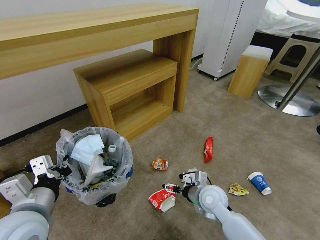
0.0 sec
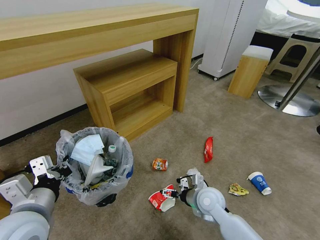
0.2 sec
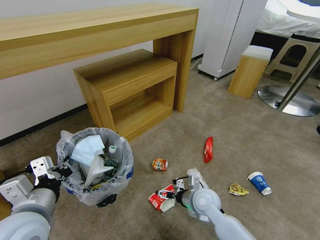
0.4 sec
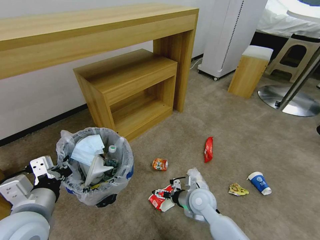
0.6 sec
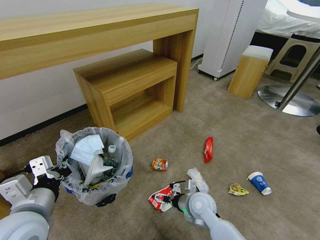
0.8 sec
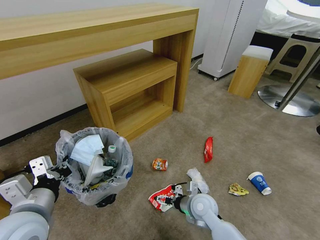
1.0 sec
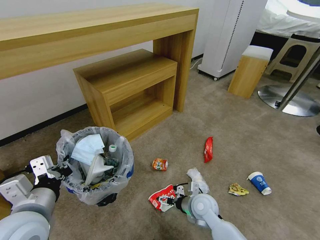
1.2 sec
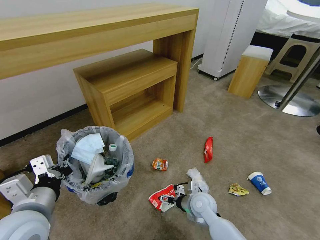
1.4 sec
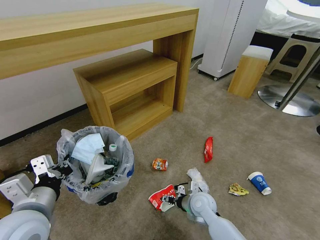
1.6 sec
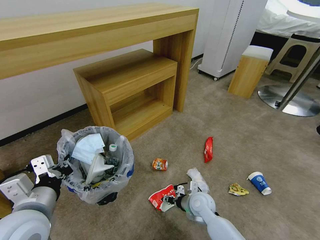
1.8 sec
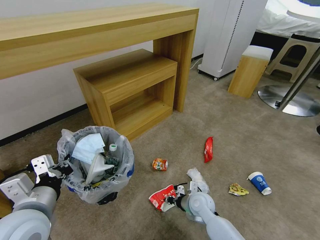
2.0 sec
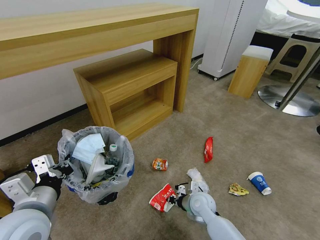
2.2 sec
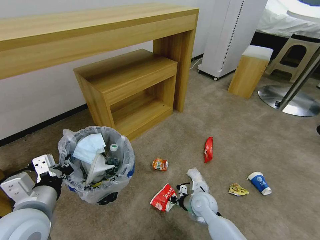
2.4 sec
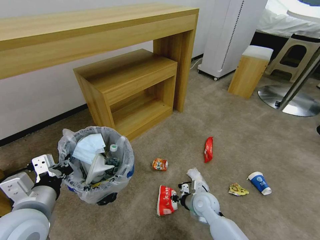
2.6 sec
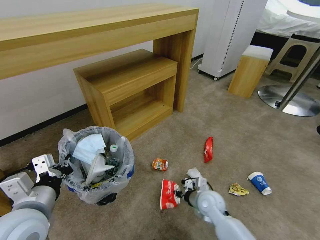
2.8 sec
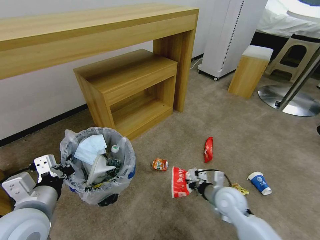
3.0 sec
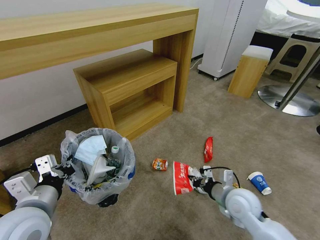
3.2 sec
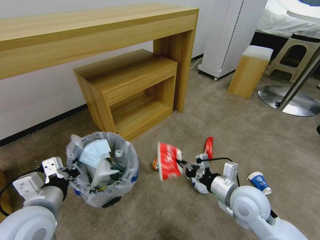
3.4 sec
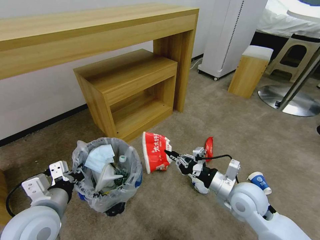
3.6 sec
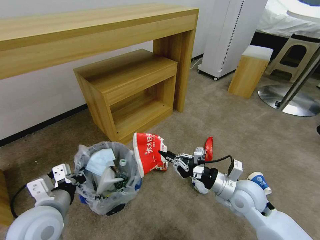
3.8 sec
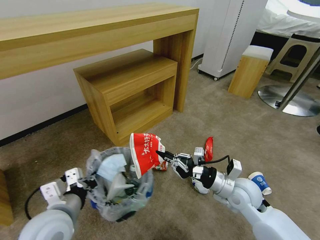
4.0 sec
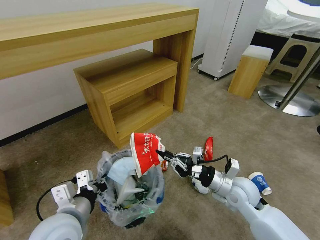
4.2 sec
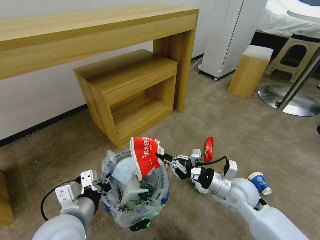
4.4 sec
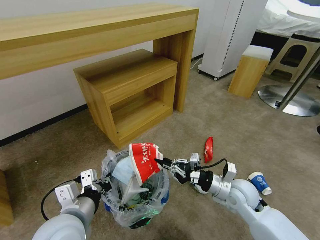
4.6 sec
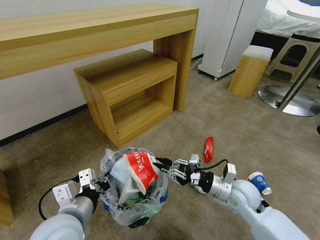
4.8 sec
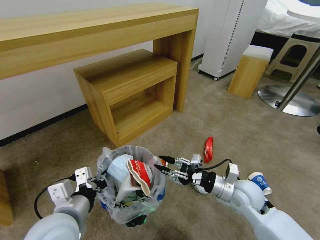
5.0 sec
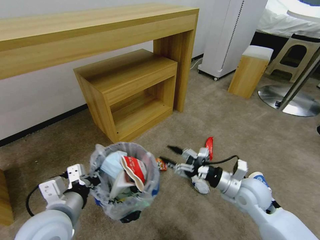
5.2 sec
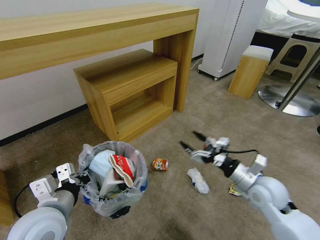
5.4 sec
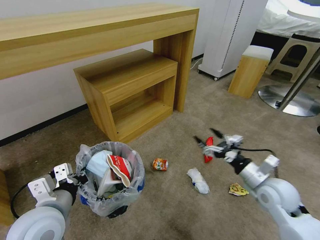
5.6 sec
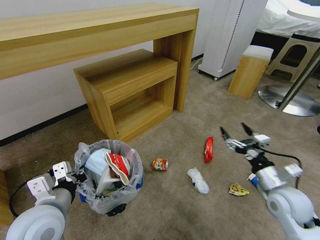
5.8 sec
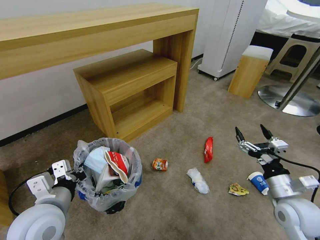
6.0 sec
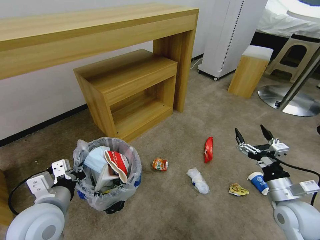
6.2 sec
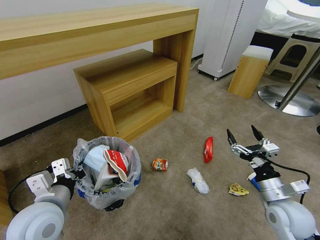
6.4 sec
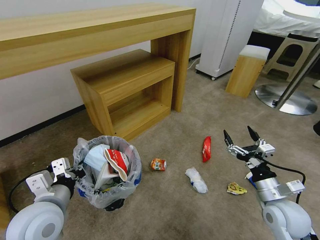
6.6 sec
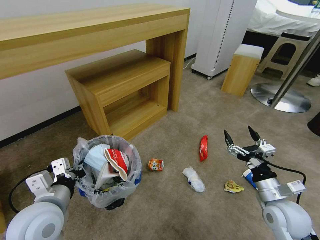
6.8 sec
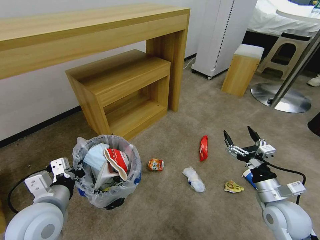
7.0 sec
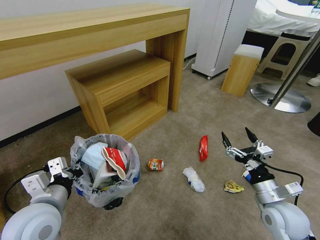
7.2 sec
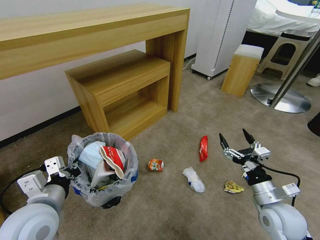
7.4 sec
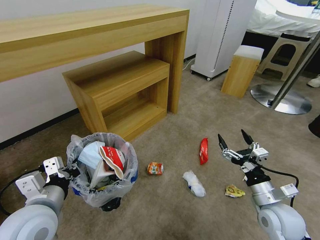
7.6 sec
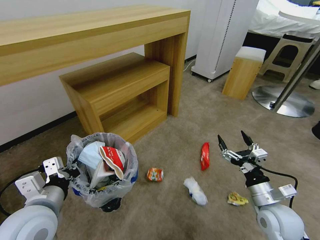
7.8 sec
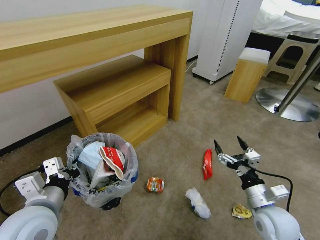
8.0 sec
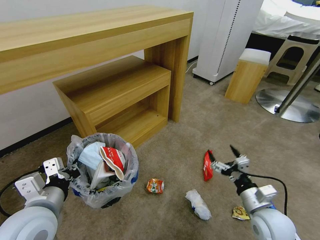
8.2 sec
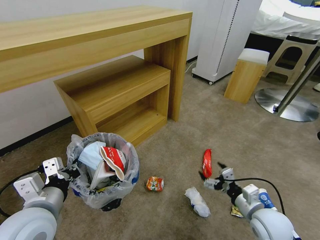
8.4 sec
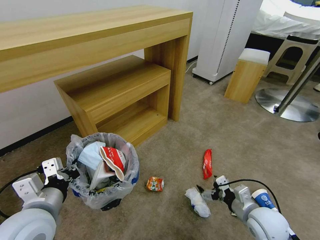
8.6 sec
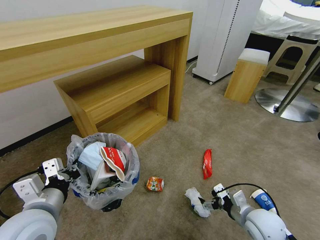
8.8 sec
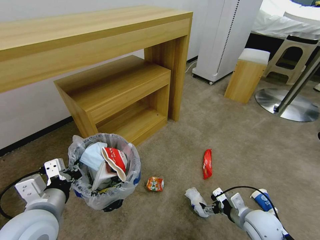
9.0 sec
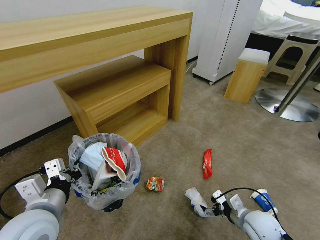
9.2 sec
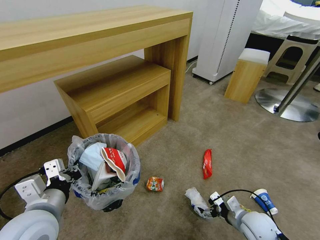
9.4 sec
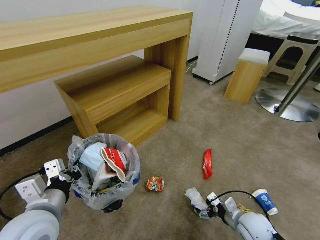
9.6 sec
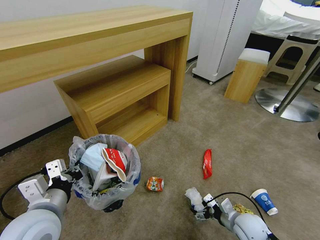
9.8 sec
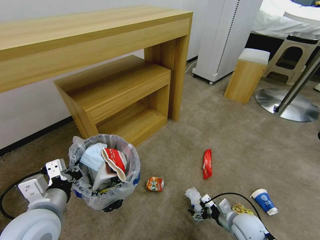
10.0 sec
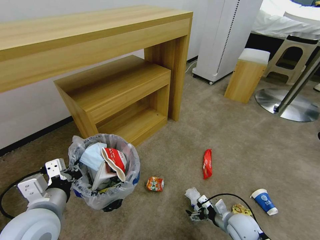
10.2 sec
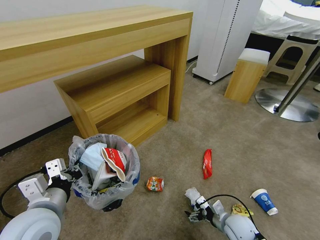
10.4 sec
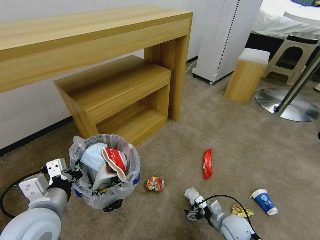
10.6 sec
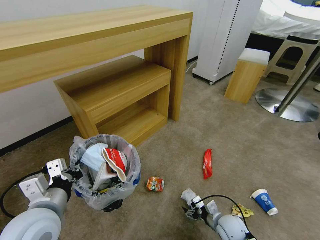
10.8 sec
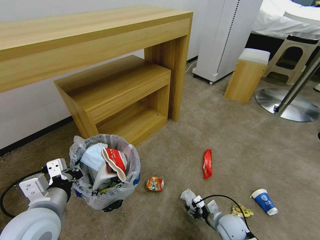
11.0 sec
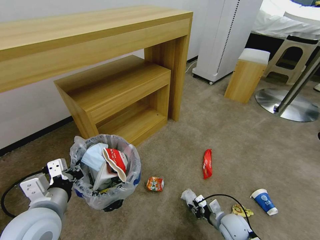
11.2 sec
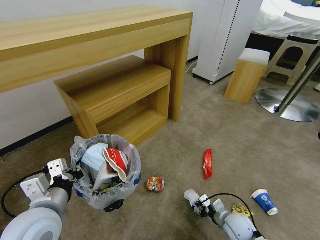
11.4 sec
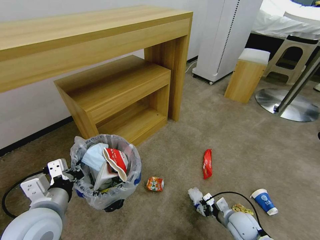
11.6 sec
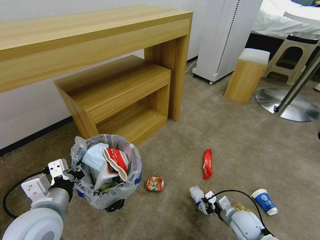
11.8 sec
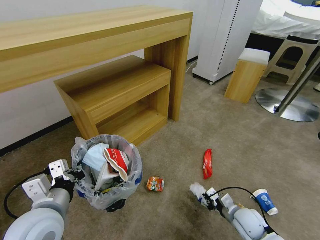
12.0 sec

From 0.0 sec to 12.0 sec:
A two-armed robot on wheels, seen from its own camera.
Task of the whole recording: Pick up the trash bin and place the garbage on the floor into it.
From 0.0 sec to 1.6 sec: The right gripper is displaced downward by roughly 5 cm.
From 1.6 sec to 3.0 sec: The right gripper shifts about 10 cm to the right and upward, and closes up.
From 3.0 sec to 4.4 sec: The right gripper travels upward by approximately 5 cm, while the left gripper travels to the right by approximately 5 cm.
From 4.4 sec to 6.0 sec: The right gripper moves to the right and backward, some 15 cm, and opens up, while the left gripper shifts some 5 cm to the left.
From 7.6 sec to 9.0 sec: The right gripper is displaced downward by some 5 cm.
From 9.0 sec to 10.4 sec: The right gripper is displaced downward by about 10 cm.
From 10.4 sec to 12.0 sec: The right gripper closes up.

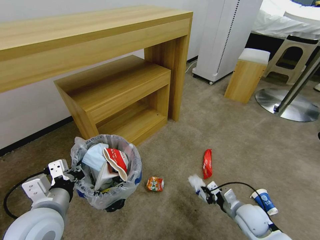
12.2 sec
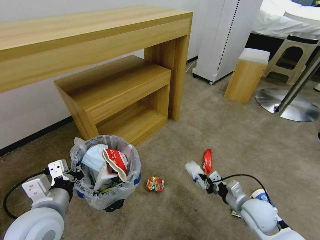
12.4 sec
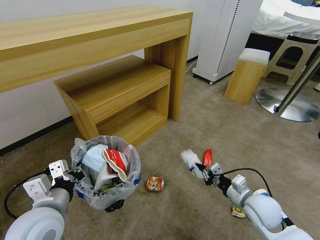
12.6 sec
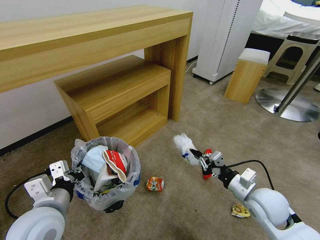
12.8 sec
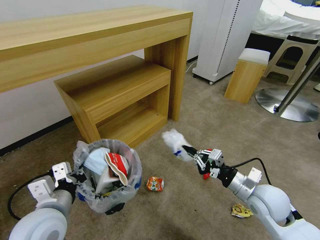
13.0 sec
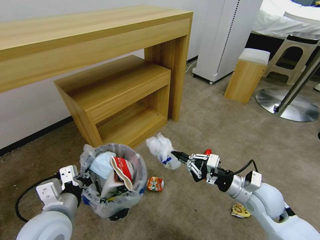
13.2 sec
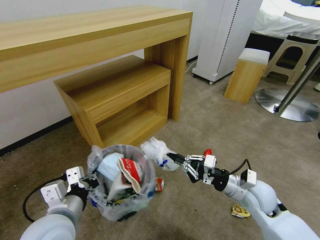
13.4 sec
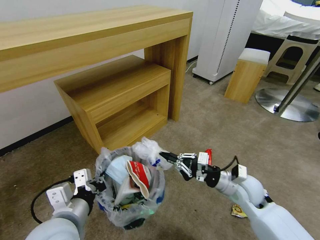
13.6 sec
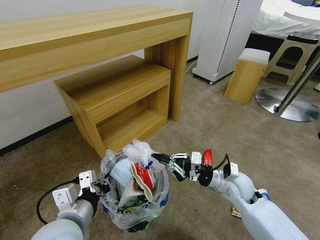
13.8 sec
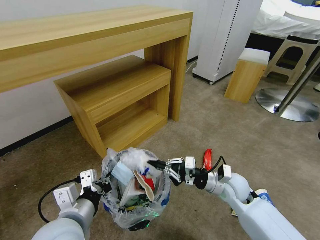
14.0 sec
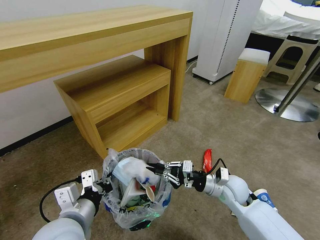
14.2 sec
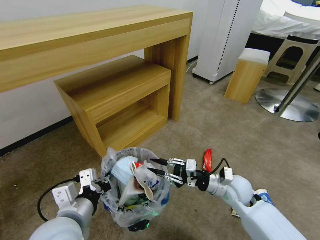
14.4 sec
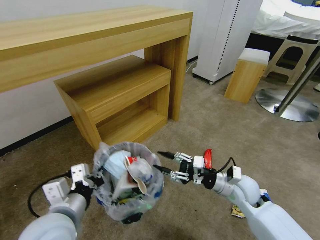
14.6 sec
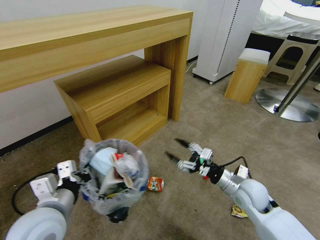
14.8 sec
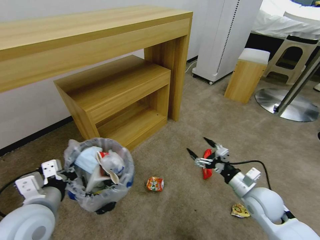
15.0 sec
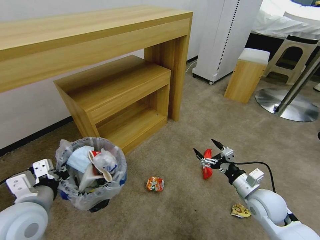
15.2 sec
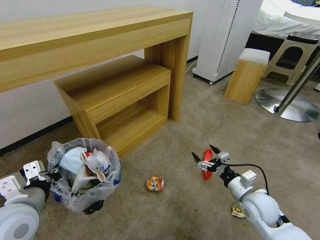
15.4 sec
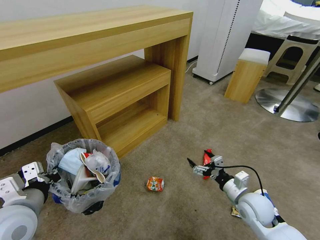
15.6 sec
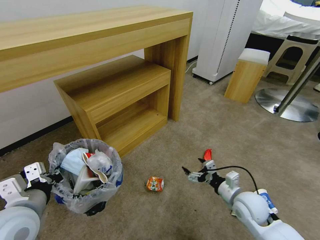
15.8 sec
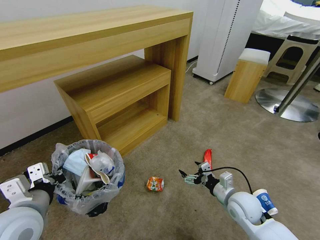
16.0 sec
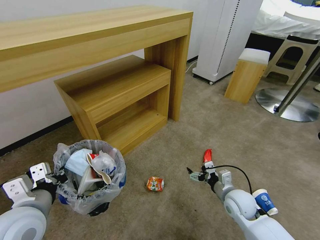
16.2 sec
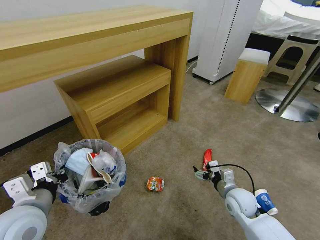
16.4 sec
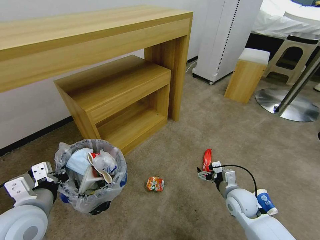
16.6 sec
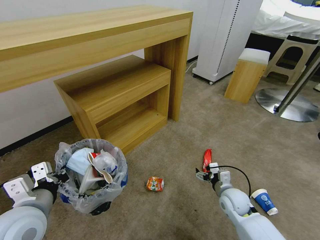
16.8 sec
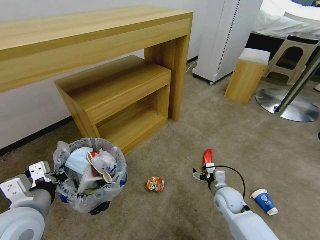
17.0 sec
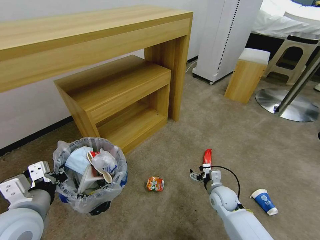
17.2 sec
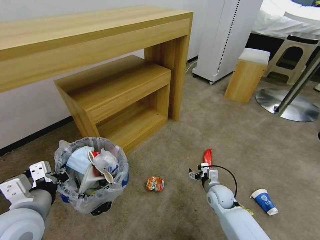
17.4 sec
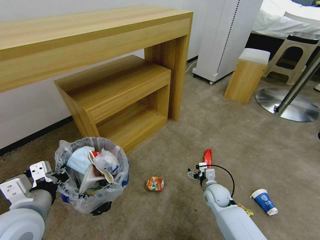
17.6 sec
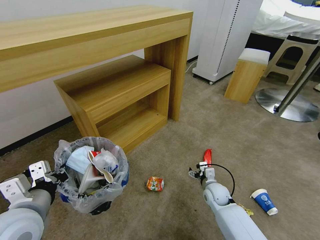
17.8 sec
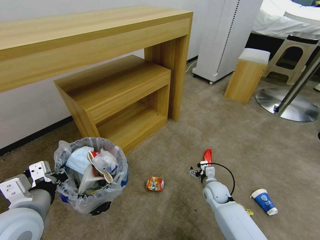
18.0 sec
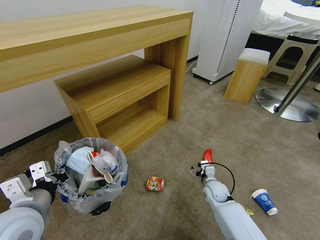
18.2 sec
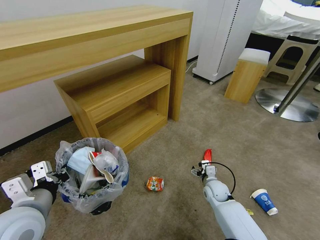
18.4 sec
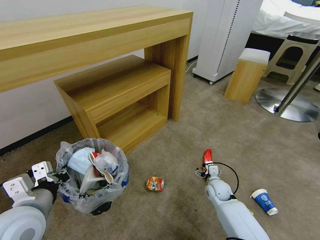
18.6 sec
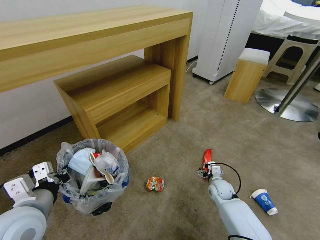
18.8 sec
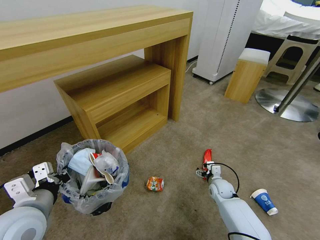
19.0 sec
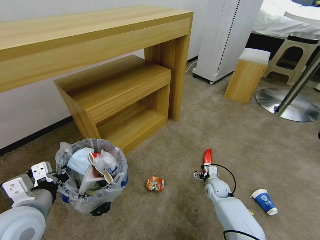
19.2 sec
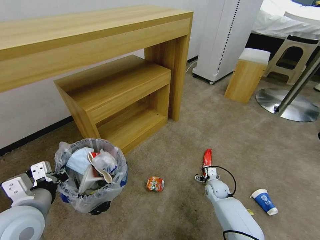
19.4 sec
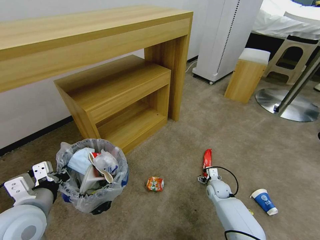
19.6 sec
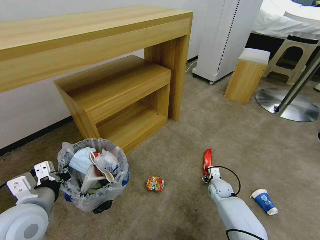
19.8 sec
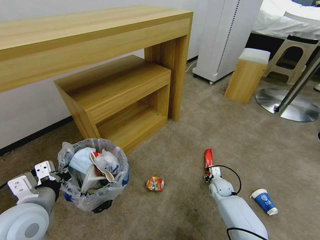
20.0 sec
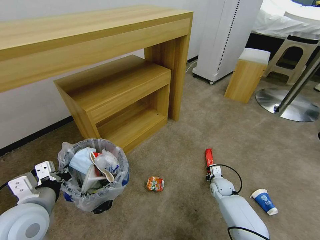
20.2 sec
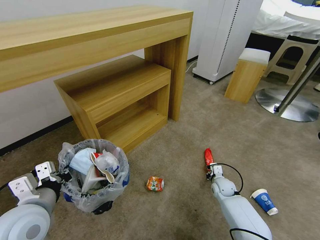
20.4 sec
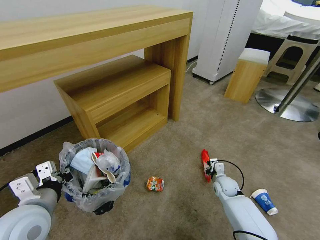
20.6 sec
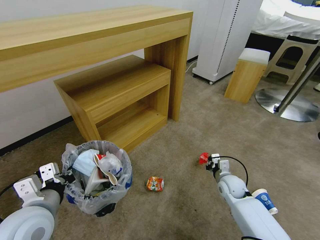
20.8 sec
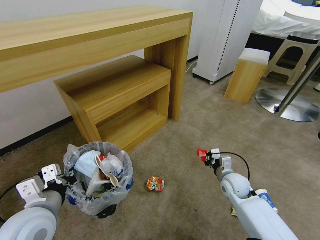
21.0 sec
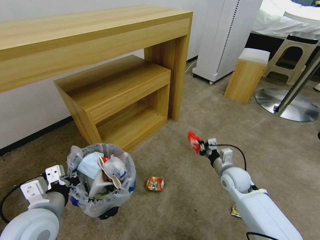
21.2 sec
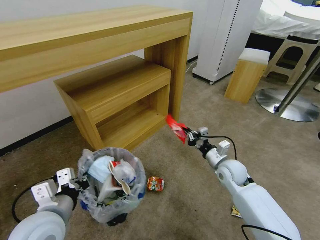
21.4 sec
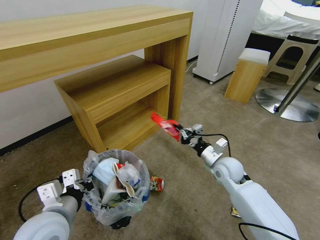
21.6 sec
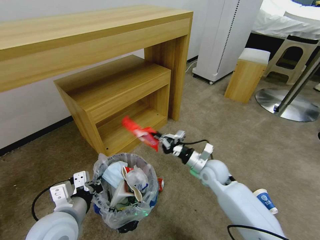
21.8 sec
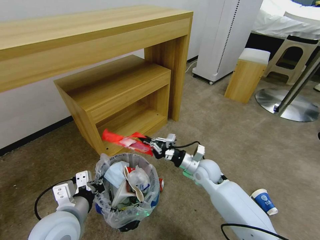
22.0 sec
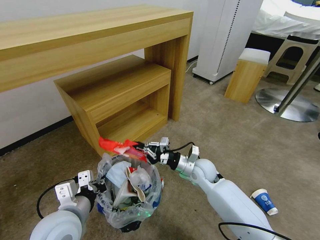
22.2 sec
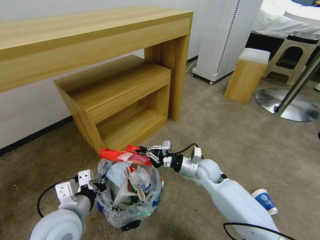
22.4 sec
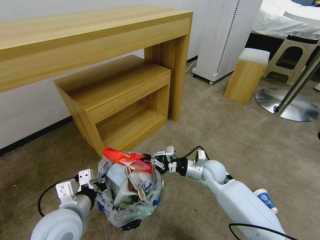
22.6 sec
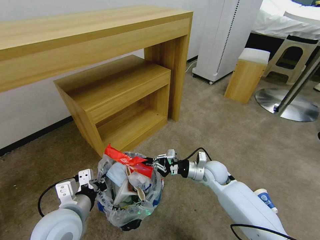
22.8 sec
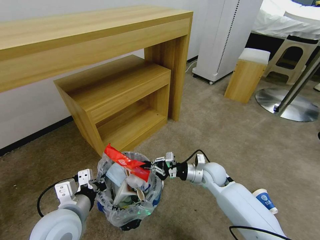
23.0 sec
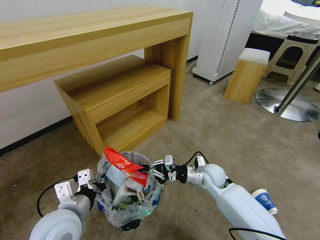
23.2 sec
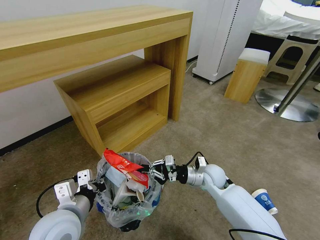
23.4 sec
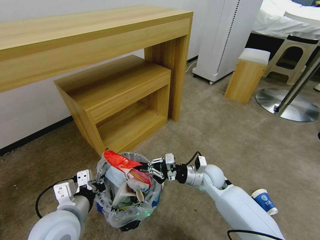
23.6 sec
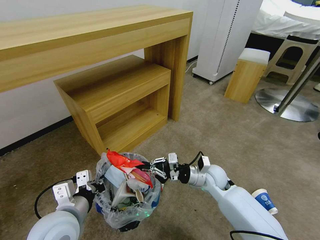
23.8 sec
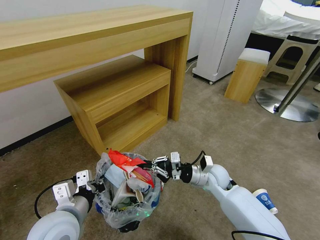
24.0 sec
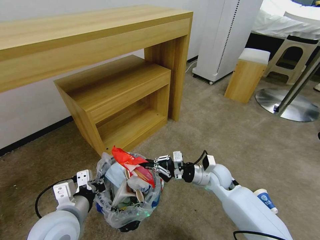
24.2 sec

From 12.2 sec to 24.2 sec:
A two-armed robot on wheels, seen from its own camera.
Task of the whole recording: Pick up the trash bin and place the garbage on the floor into it.
From 12.2 sec to 13.8 sec: The left gripper ends up about 5 cm from where it was; the right gripper travels upward, forward and to the left by roughly 15 cm.
From 13.8 sec to 15.2 sec: The right gripper shifts about 10 cm to the right and backward, and opens its fingers, while the left gripper heads to the left, covering roughly 10 cm.
From 15.2 sec to 16.6 sec: The right gripper is displaced downward by some 5 cm.
From 16.6 sec to 18.2 sec: The right gripper is displaced downward, forward and to the left by roughly 10 cm.
From 18.2 sec to 19.8 sec: The right gripper shifts by about 5 cm.
From 19.8 sec to 21.2 sec: The right gripper goes approximately 15 cm upward, and closes up.
From 21.2 sec to 22.6 sec: The right gripper goes roughly 10 cm to the left, while the left gripper shifts by about 5 cm.
From 22.6 sec to 24.2 sec: The grippers stay close to where they were, moving slightly.
